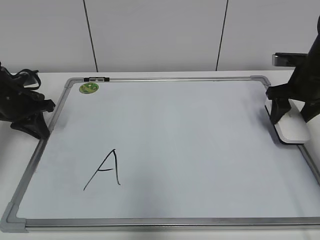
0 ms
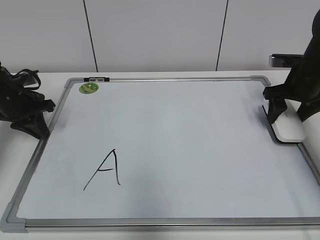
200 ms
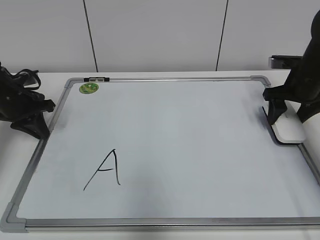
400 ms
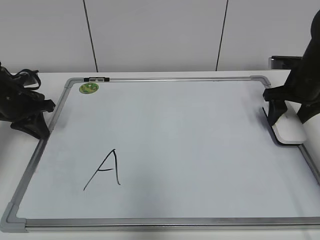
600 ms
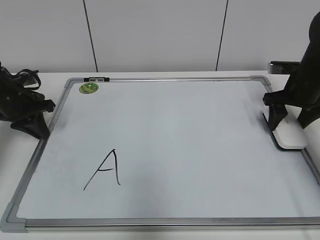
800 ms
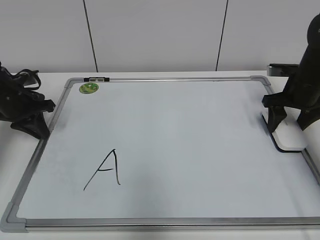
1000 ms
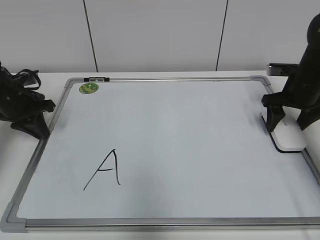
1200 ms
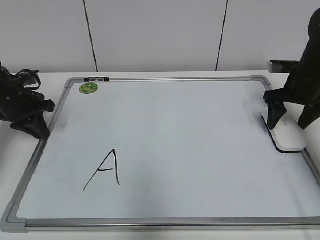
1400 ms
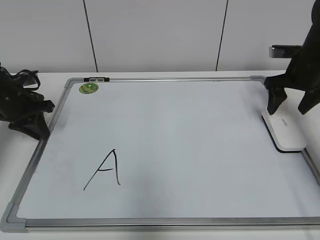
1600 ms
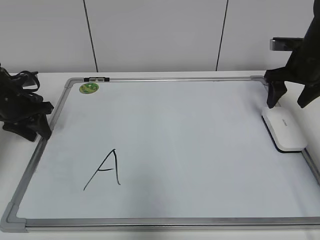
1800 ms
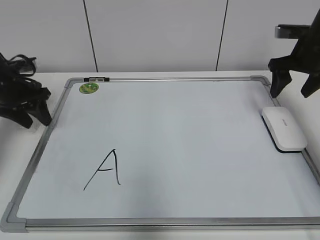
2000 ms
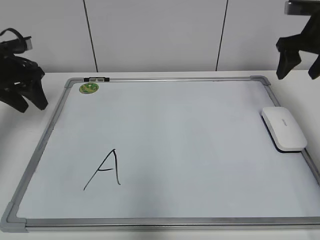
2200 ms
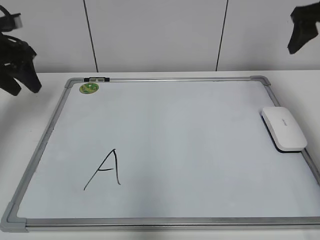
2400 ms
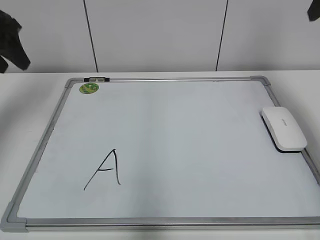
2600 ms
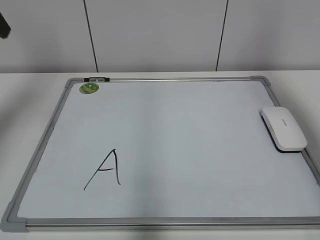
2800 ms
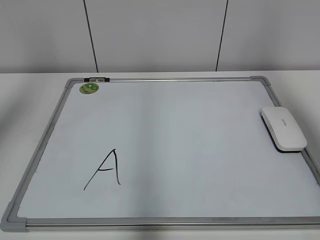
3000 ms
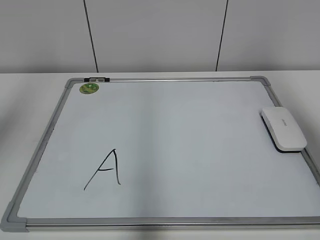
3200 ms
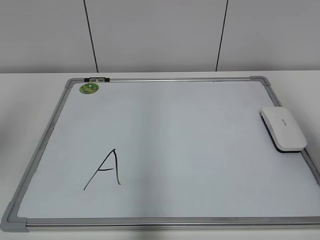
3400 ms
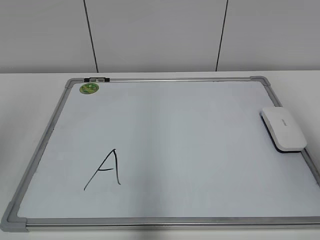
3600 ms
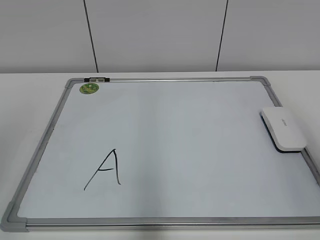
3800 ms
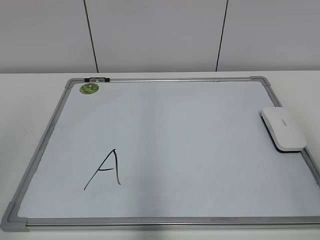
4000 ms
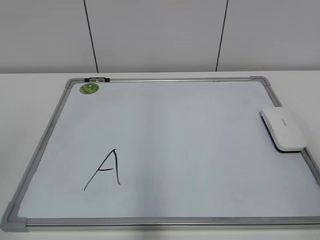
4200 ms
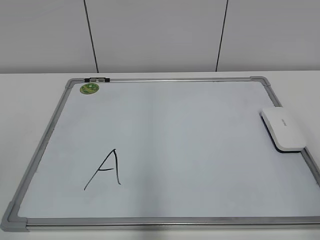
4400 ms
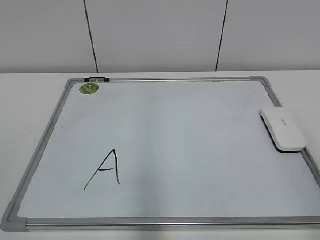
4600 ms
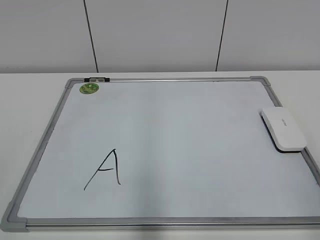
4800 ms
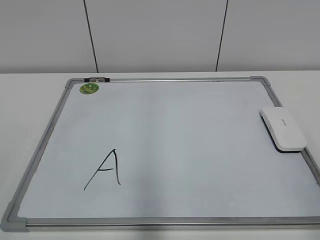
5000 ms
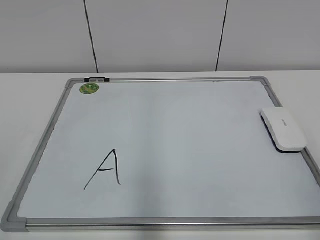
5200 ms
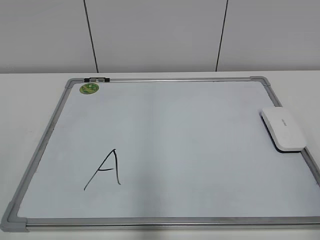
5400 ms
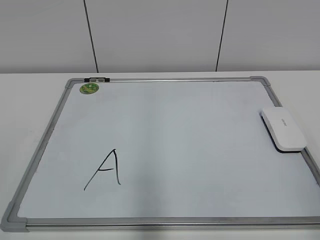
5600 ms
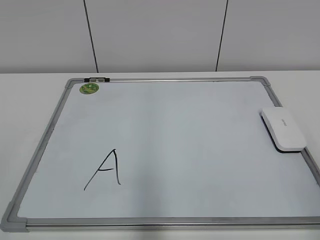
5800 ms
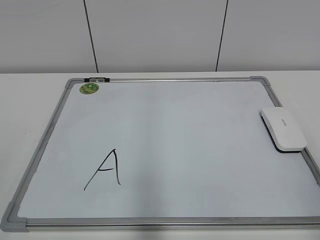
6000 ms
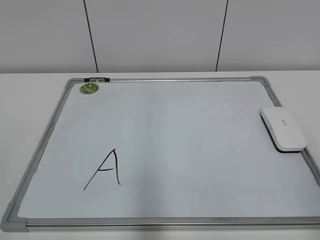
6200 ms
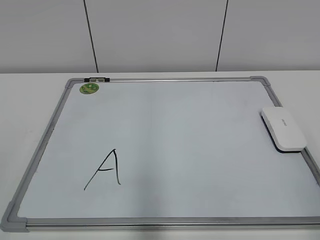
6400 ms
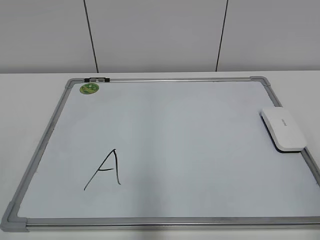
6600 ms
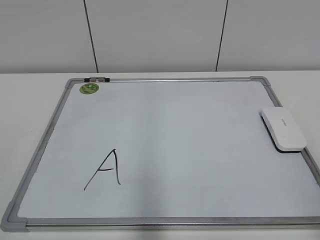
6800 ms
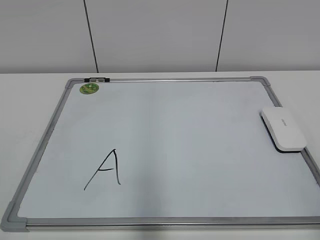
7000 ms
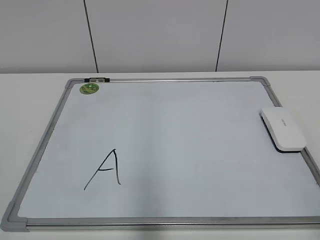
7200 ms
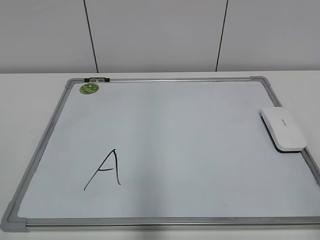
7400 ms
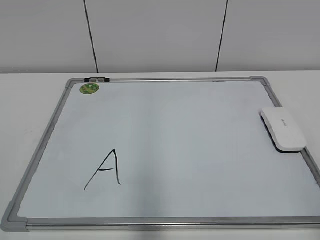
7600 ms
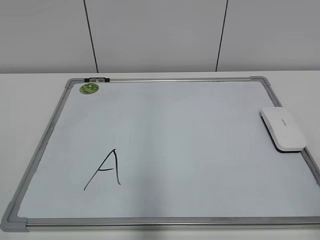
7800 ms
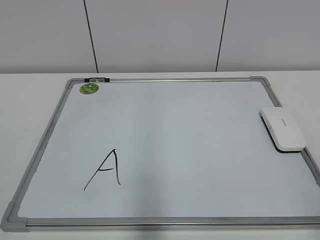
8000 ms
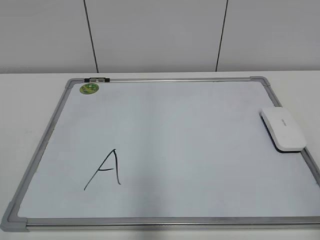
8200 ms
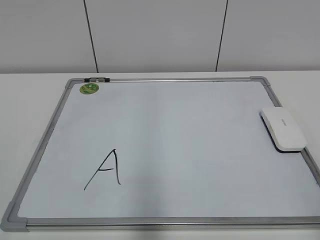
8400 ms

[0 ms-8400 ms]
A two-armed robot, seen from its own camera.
Task of the whole recording: pick up the eraser on the blackboard and erase the letter "a".
0 ms to 1400 ms: The right gripper opens.
1400 ms to 2800 ms: The left gripper moves upward, approximately 25 cm, and opens up. The right gripper is displaced upward and backward by approximately 30 cm, and closes up.
2800 ms to 4200 ms: The two grippers go approximately 30 cm backward.
7000 ms to 8400 ms: Both grippers stay put.

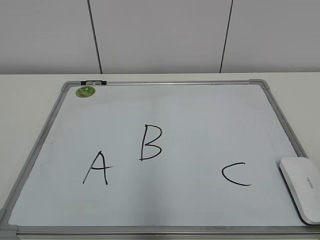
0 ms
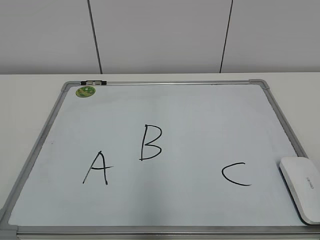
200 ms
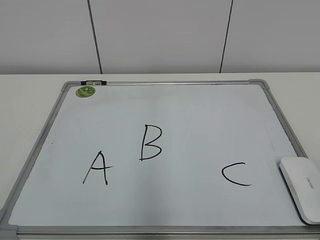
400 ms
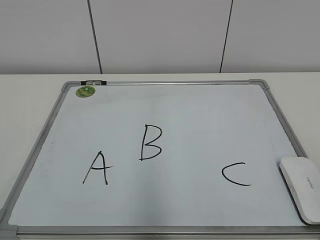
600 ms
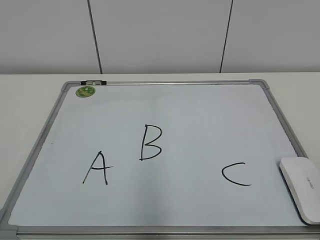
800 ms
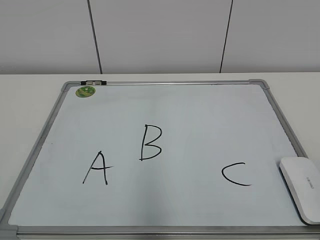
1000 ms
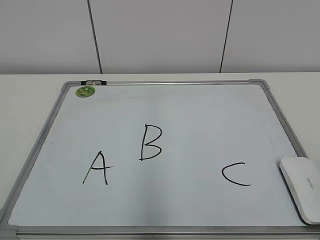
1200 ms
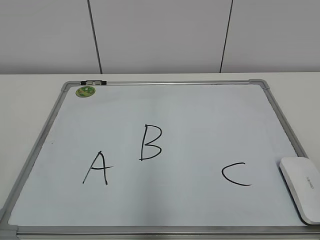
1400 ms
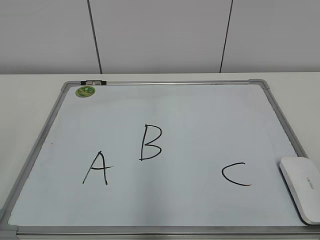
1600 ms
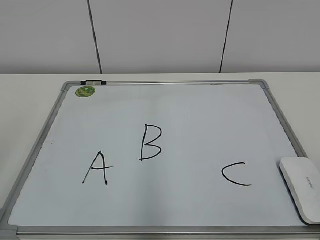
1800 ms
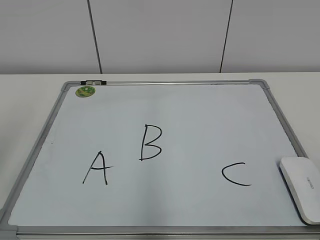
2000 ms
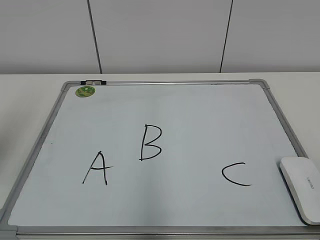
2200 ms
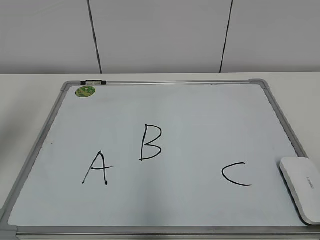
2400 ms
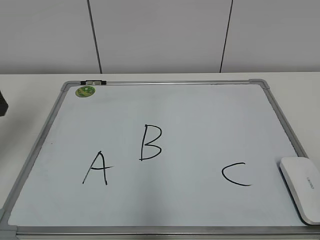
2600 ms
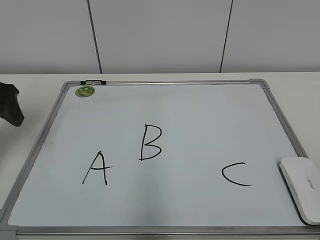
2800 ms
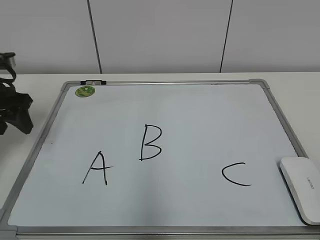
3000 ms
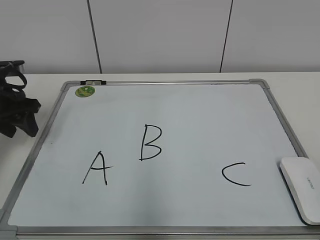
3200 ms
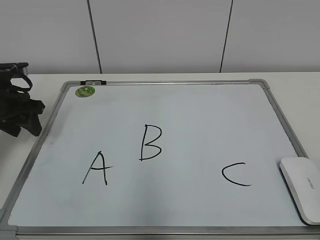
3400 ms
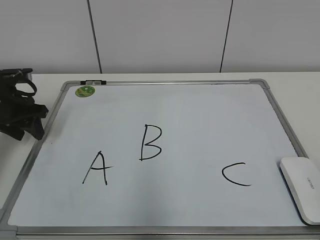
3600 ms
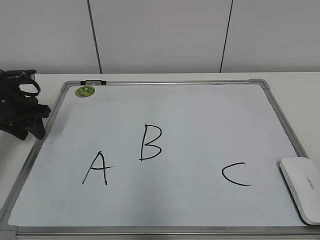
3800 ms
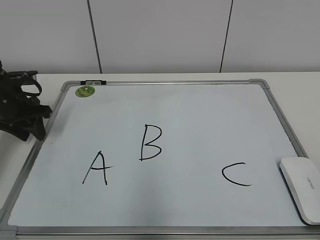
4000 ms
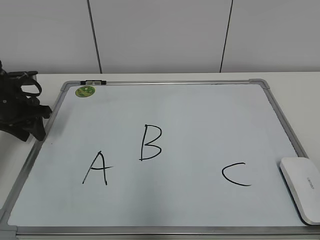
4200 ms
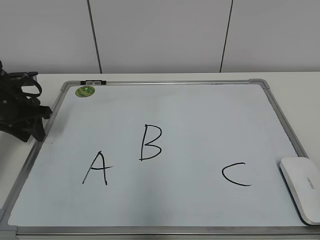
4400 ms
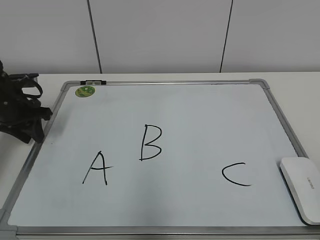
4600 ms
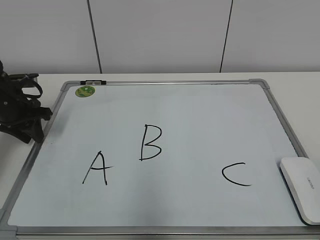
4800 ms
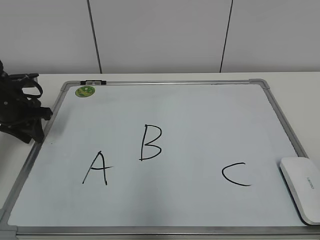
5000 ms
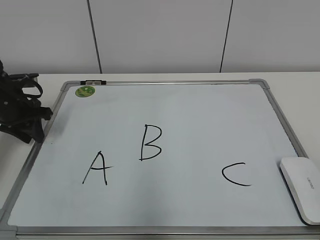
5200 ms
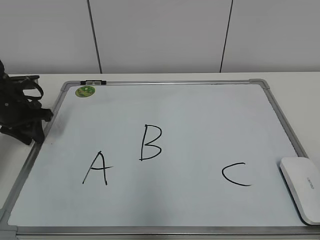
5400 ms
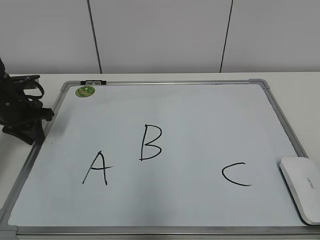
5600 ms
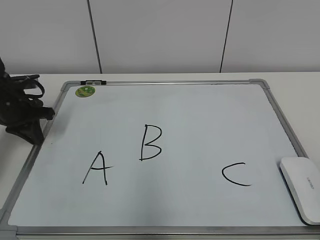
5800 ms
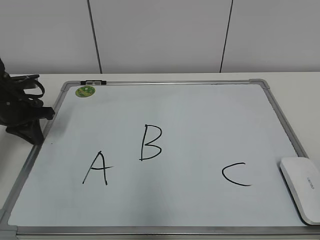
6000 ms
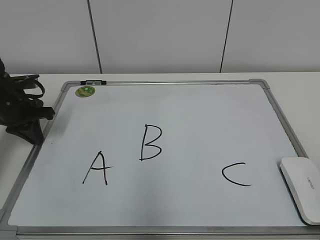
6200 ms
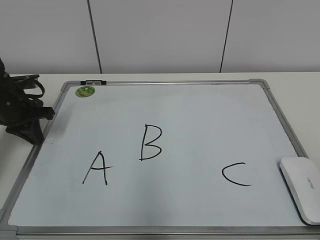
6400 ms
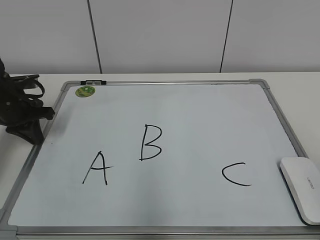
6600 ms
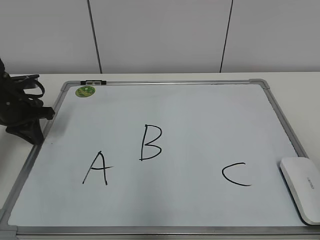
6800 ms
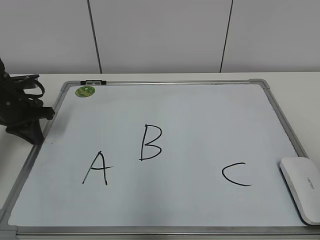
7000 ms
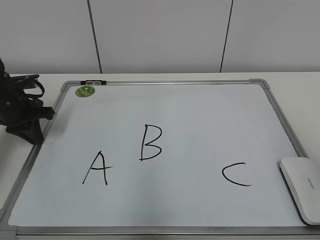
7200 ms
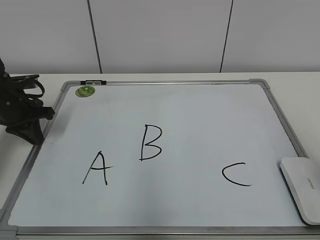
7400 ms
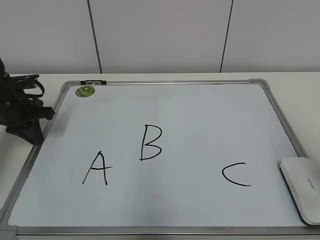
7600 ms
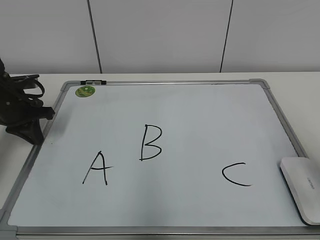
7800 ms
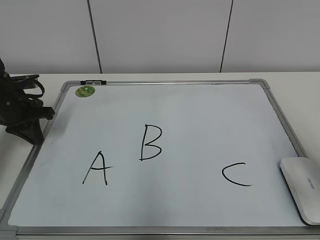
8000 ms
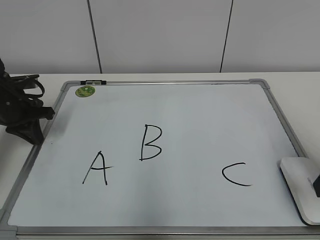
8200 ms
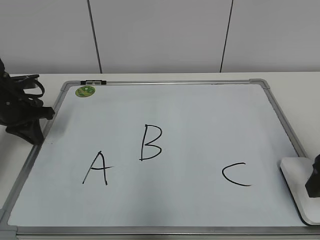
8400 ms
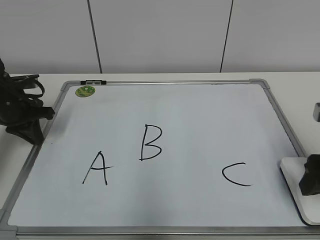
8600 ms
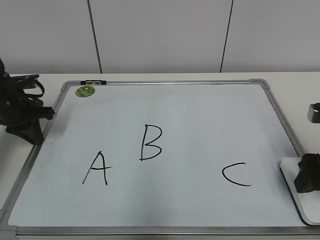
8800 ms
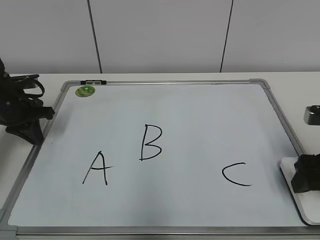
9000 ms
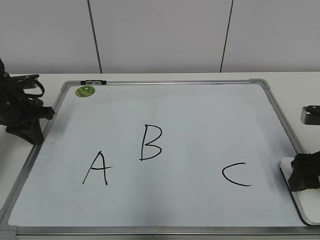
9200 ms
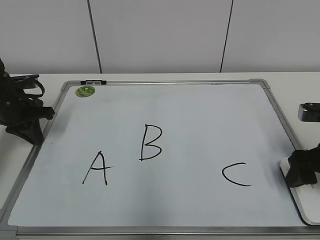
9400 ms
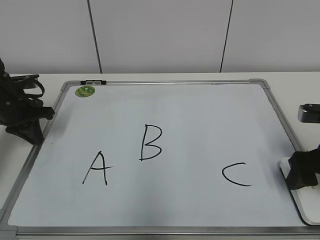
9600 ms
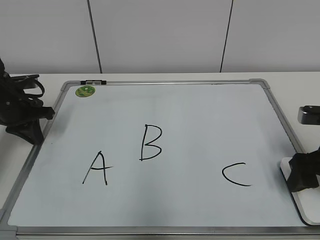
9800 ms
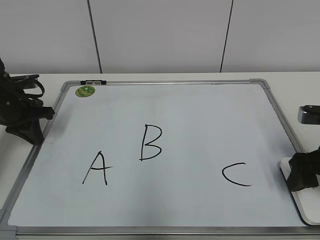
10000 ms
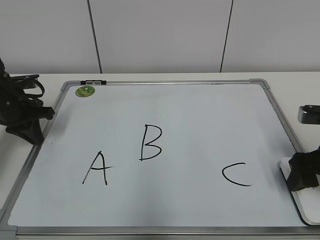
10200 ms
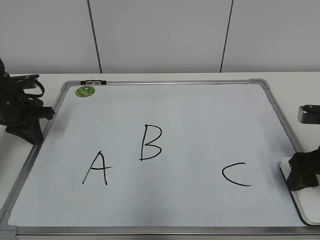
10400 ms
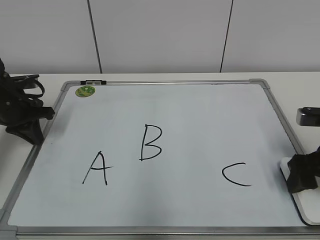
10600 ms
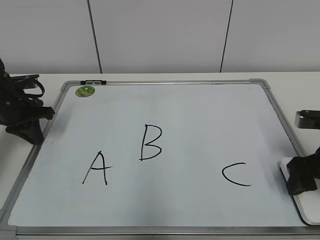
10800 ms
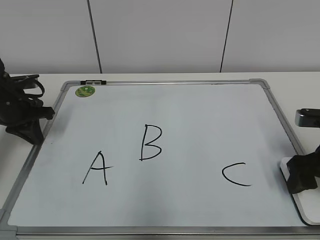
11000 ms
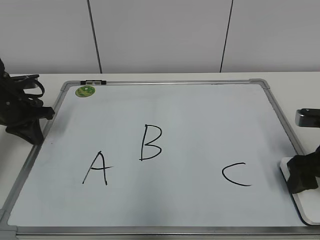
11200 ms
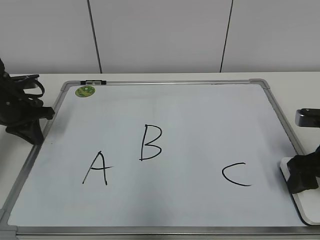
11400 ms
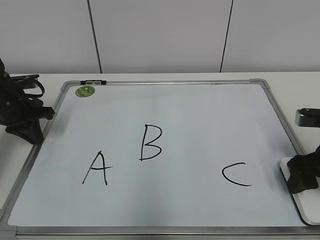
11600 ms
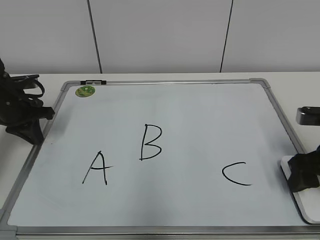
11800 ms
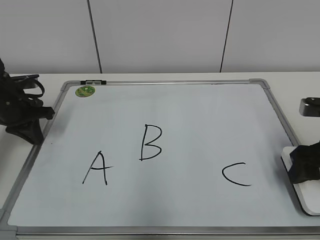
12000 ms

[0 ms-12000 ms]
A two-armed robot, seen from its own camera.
Task of the whole recording: pick up the eraser on the blackboard and erase the letter "B".
Step, 0 ms to 6000 ms: Hold the drawing board steady with your left hand.
Step, 6200 ms to 11600 ms: Grab the eraser with your right hand.
1600 ms to 3000 ms: The left gripper heads forward, covering roughly 30 cm.
3000 ms to 4400 ms: The left gripper is displaced downward by approximately 5 cm.
4400 ms to 6000 ms: The left gripper closes its fingers.
6000 ms to 7600 ms: The right gripper heads forward, covering approximately 15 cm.
7600 ms to 9000 ms: The right gripper shifts about 15 cm downward and forward.
9000 ms to 10400 ms: The grippers move only a little.
10400 ms to 12000 ms: Both grippers stay about where they are.

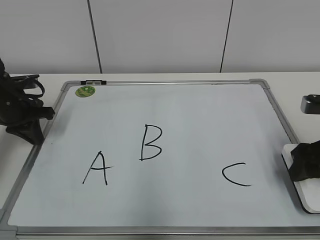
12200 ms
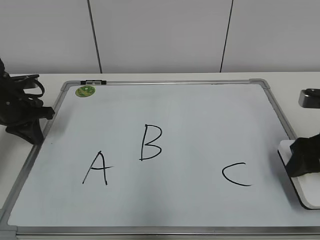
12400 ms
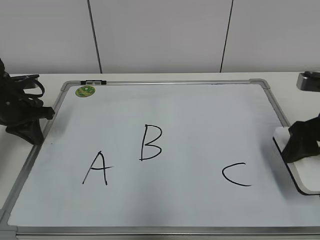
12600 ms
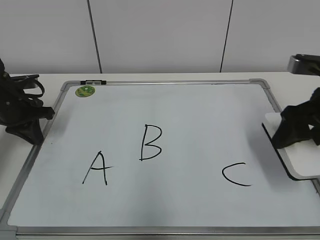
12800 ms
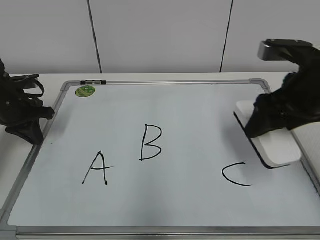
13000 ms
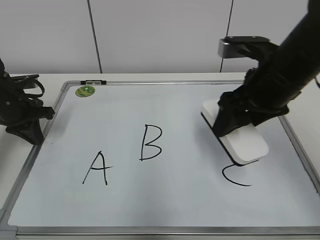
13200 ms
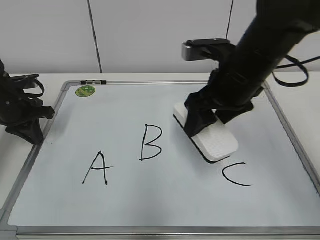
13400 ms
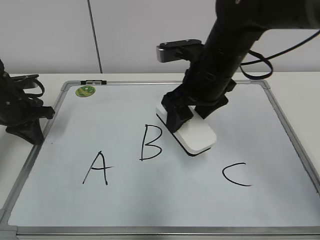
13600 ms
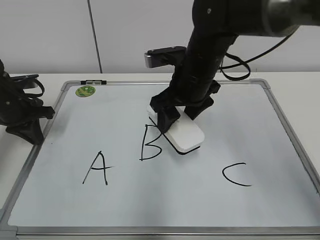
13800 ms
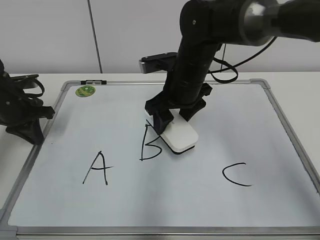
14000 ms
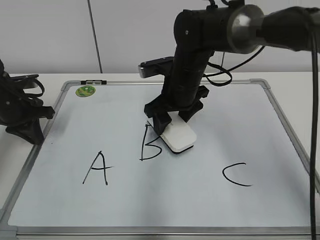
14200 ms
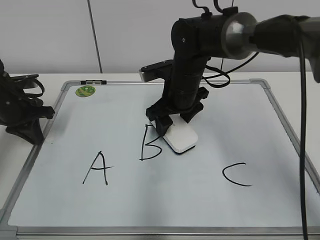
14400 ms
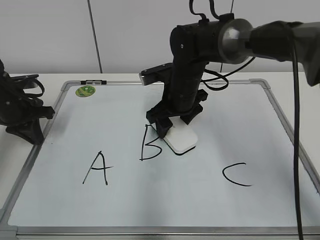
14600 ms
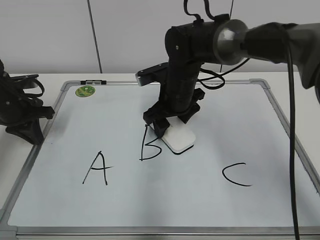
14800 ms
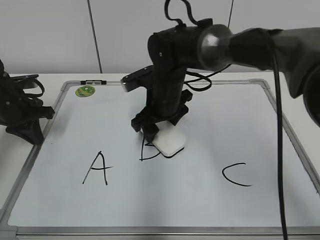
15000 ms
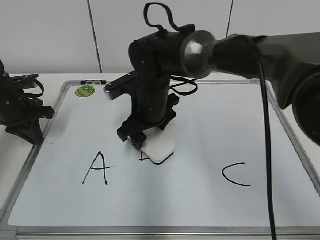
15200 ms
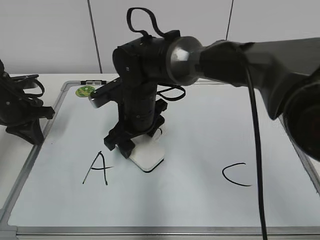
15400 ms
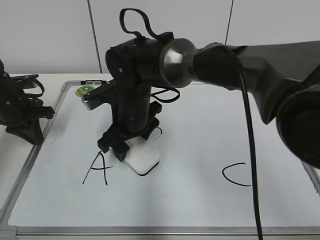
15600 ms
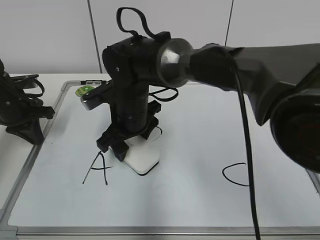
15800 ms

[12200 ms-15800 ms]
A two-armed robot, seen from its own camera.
Task of the whole recording: pick up the eraser on the blackboard and erase the letter "B".
12200 ms to 14000 ms: The right gripper is displaced to the left and forward by roughly 25 cm.
14000 ms to 15800 ms: The right gripper is displaced to the left by roughly 10 cm.
